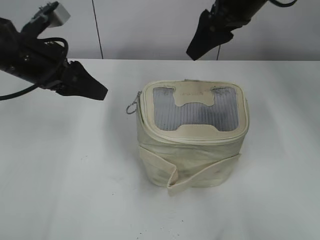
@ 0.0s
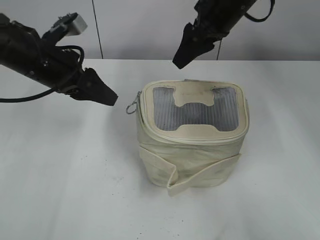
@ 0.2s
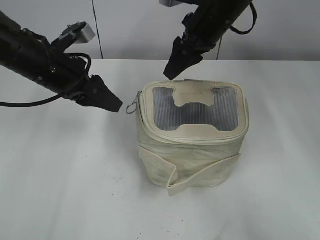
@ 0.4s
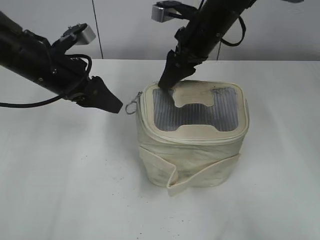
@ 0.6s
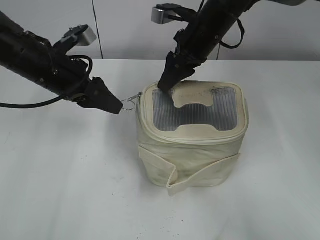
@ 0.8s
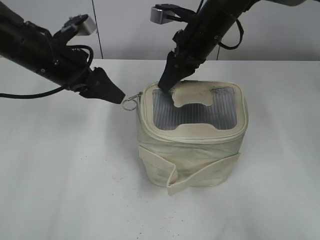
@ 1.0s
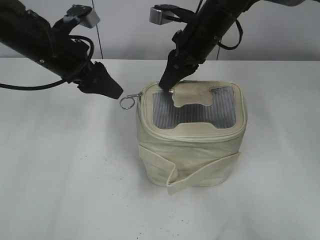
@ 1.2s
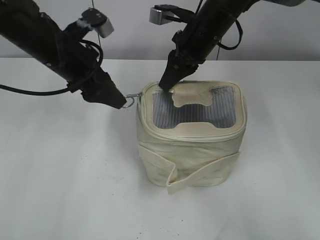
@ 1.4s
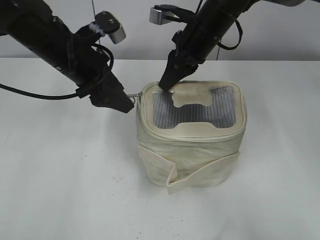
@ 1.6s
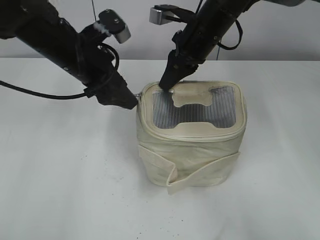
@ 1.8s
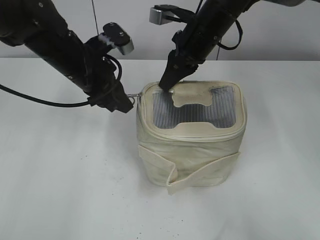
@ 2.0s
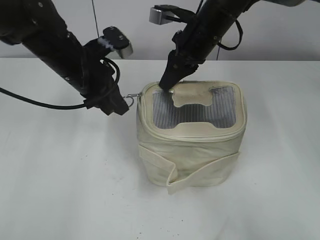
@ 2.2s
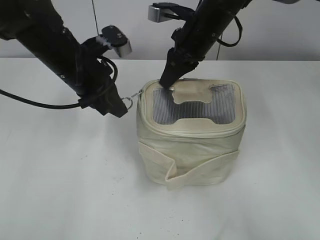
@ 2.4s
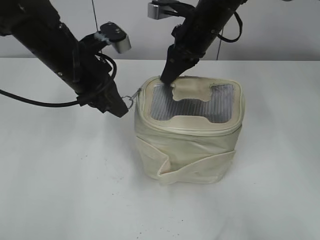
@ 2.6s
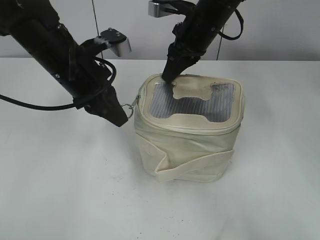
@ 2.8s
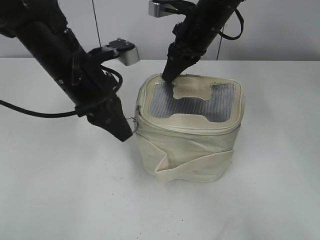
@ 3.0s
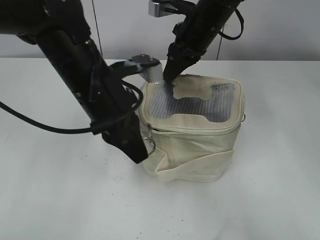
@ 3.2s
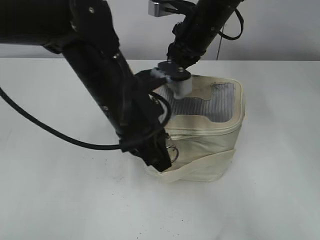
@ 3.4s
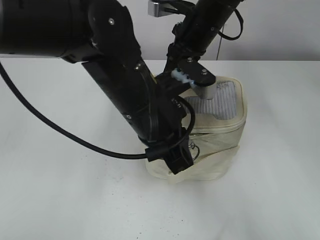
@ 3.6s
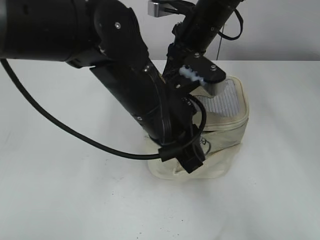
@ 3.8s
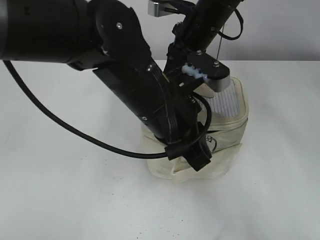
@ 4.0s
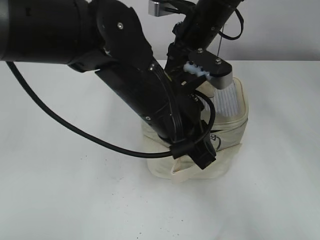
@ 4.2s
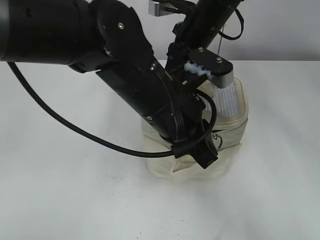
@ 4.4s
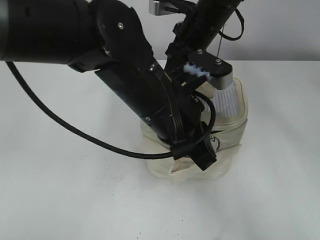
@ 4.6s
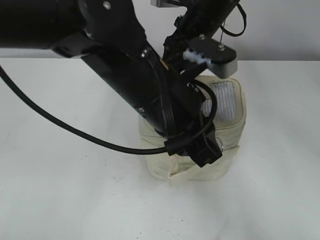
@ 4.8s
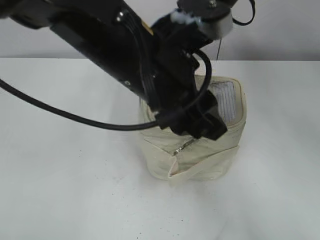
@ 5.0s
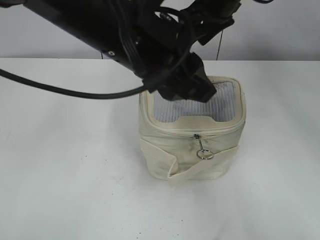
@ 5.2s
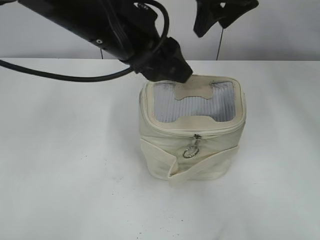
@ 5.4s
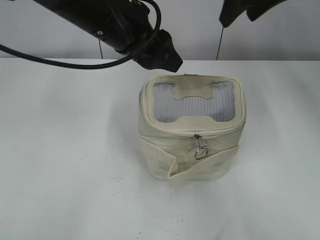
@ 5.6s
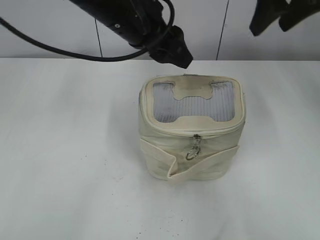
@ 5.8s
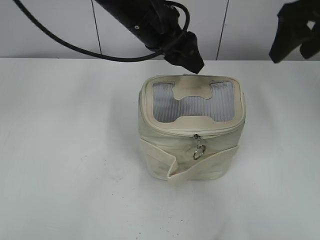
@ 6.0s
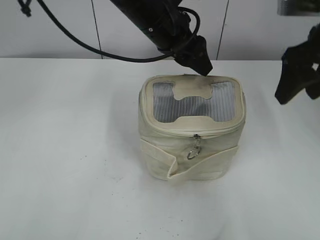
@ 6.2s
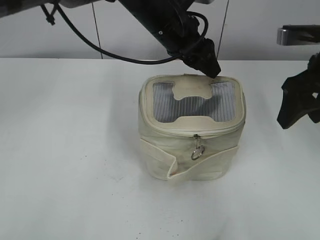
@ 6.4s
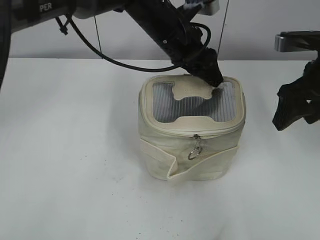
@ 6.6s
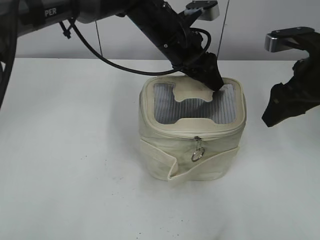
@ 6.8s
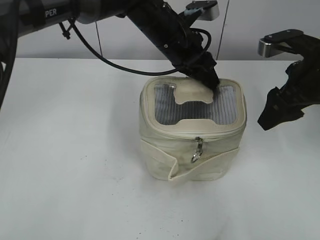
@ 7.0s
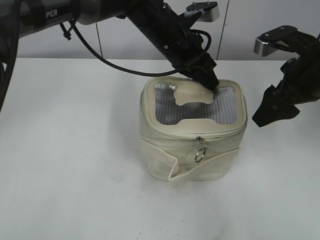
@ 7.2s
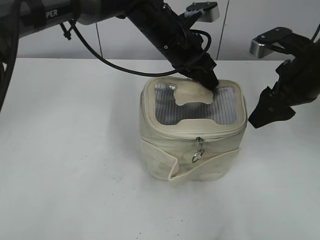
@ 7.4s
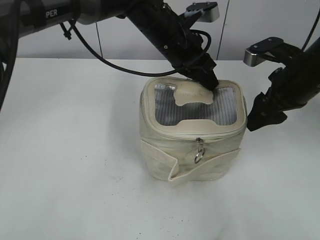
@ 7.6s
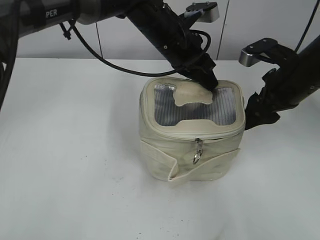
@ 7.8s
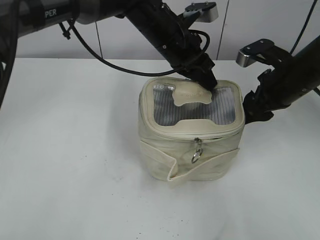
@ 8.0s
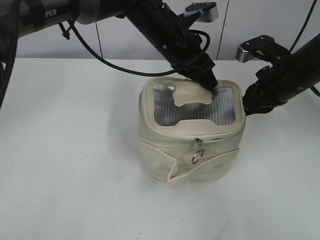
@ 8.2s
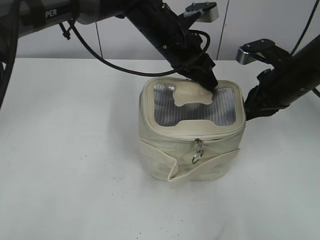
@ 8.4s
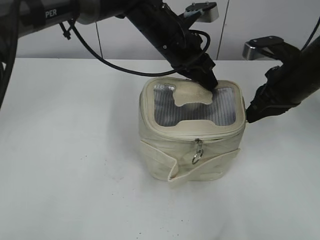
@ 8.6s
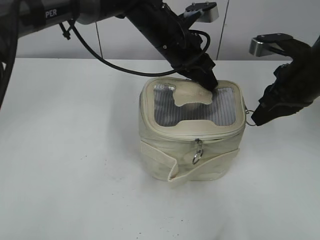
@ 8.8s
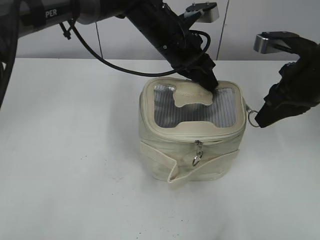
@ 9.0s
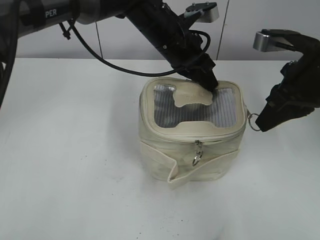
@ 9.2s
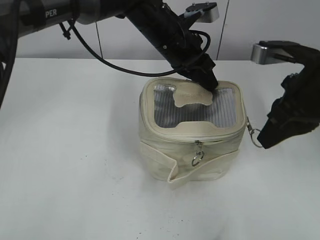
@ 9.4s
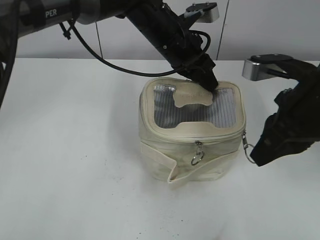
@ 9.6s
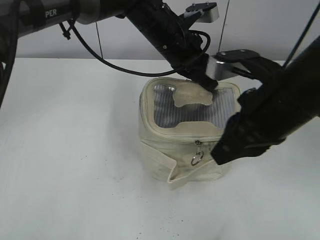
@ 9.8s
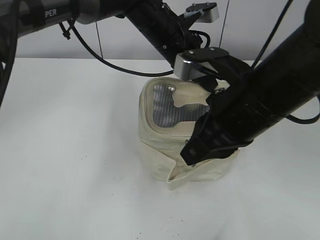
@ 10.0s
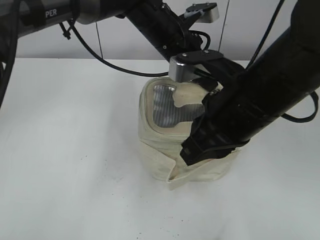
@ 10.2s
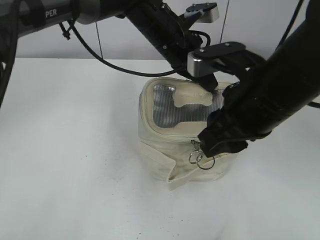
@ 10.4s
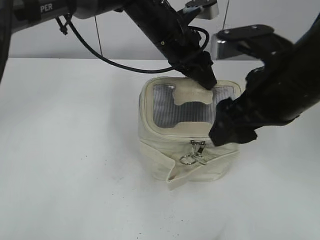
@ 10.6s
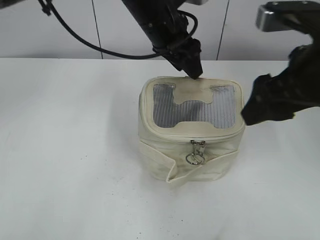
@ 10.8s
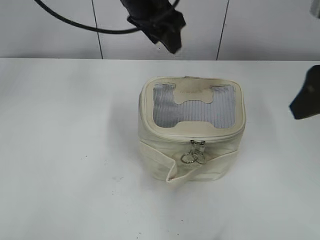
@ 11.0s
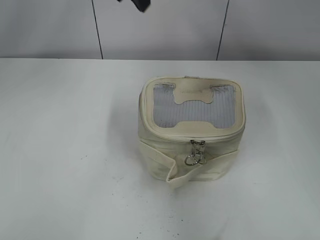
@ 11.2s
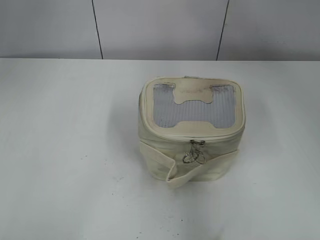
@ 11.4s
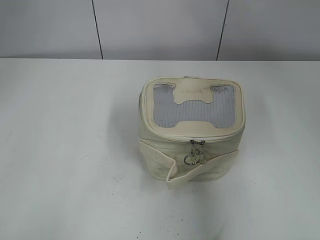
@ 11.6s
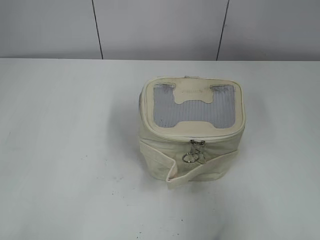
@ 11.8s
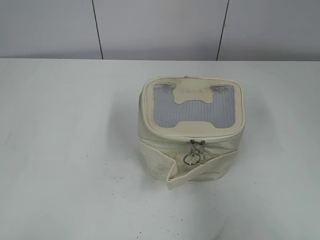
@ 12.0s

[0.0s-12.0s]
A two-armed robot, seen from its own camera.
Step, 0.0s to 4.6s: Zip up the bag with your left hand.
Step, 5.2s to 10.2s: Zip up the bag with your right hand.
Step, 10.4s to 10.8s: Hold the bag with your left hand.
0.0s to 1.6s: The left gripper is displaced to the right by roughly 5 cm. The right gripper shifts roughly 10 cm downward, and closes up.
1.6s to 3.0s: The left gripper closes up.
3.0s to 4.4s: The left gripper heads to the right and backward, covering approximately 15 cm.
4.4s to 6.0s: The left gripper goes about 15 cm forward and upward, and opens its fingers; the right gripper moves to the right, upward and backward, roughly 20 cm, and opens up.
6.0s to 7.6s: The left gripper heads downward, covering approximately 5 cm, and closes up. Meanwhile the right gripper shifts approximately 10 cm downward.
7.6s to 9.0s: The right gripper closes up.
9.0s to 10.4s: The right gripper is displaced to the left and backward by some 15 cm.
10.4s to 12.0s: The right gripper goes about 25 cm backward and to the right, and opens its fingers. The left gripper goes approximately 35 cm to the left, backward and upward, and opens up.

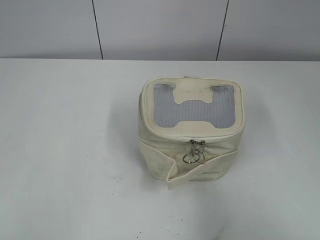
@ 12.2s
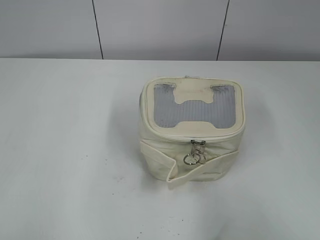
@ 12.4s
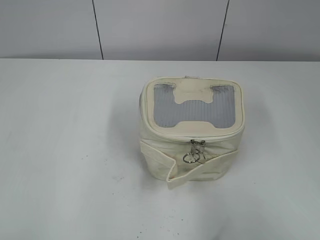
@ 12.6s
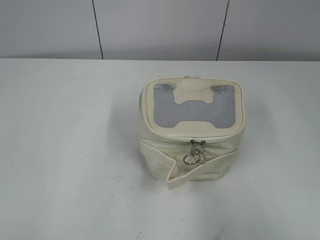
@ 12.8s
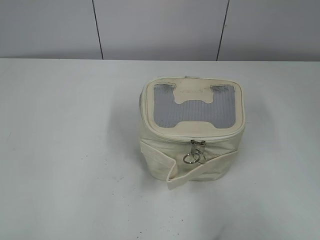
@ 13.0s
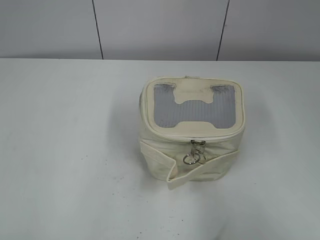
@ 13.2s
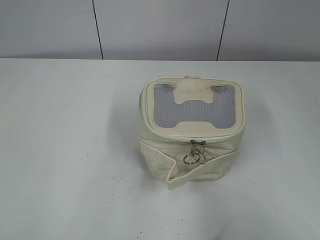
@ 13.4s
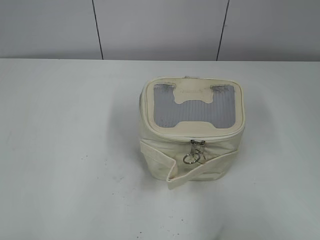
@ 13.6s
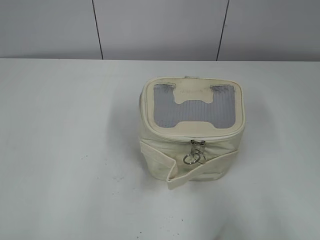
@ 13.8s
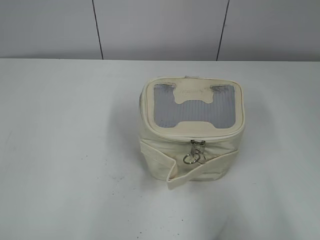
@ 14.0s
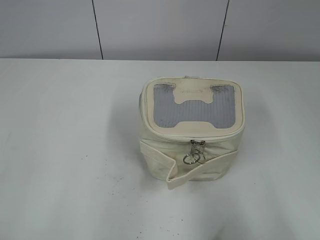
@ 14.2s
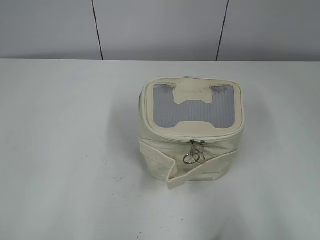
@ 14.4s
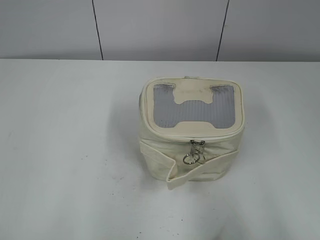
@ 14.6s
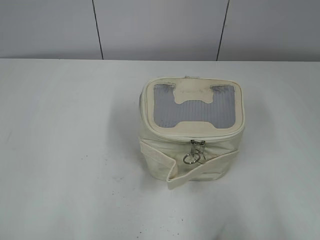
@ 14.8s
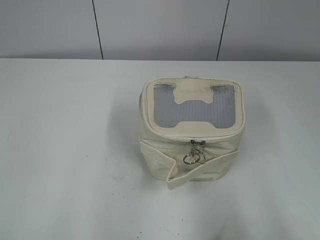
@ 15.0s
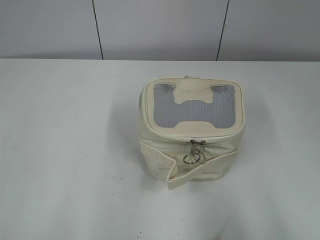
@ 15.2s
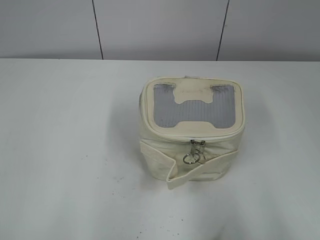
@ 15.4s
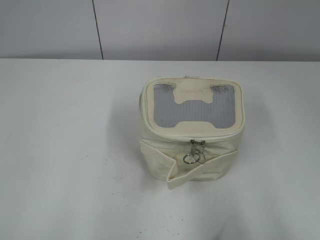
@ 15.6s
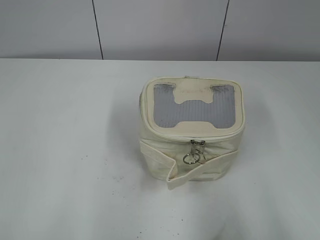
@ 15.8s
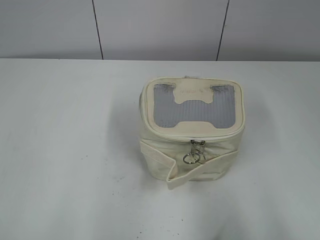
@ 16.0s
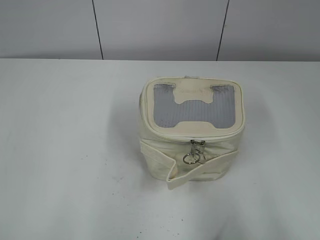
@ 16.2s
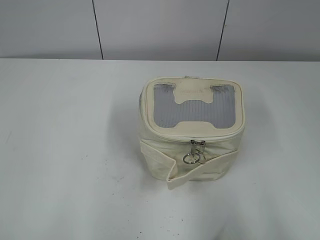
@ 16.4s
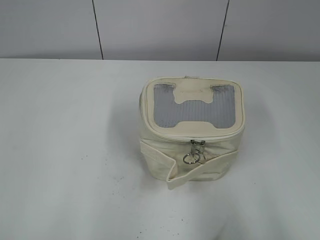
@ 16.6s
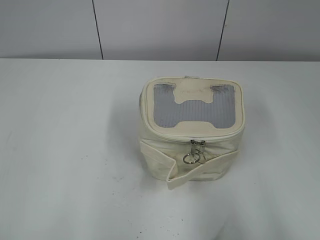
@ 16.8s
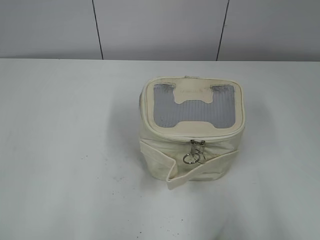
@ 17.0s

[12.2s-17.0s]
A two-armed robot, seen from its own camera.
15.4s to 17.0s: Both grippers stay put.

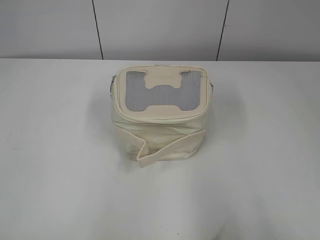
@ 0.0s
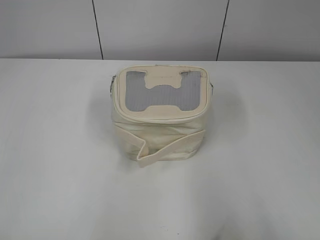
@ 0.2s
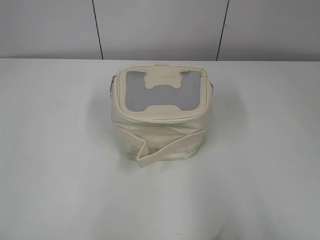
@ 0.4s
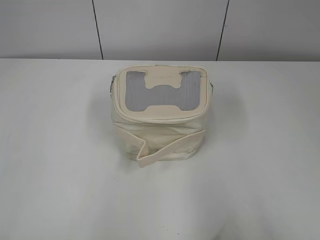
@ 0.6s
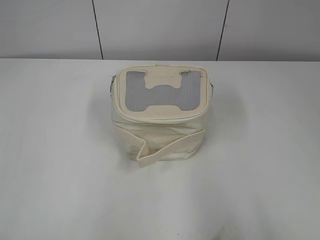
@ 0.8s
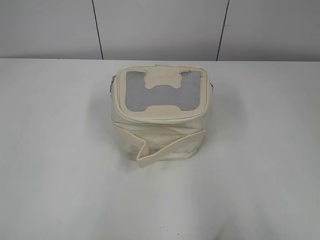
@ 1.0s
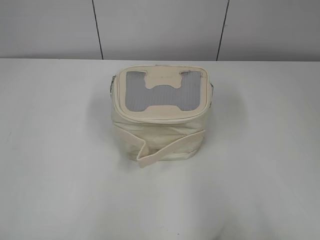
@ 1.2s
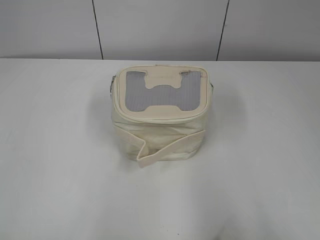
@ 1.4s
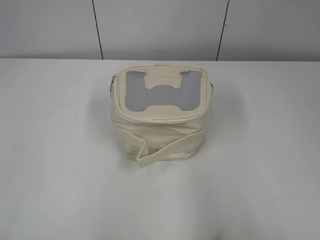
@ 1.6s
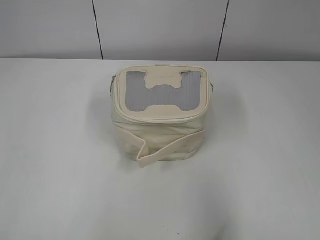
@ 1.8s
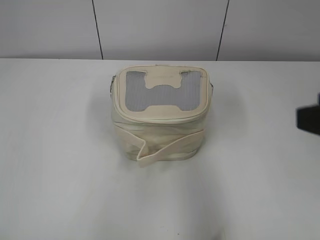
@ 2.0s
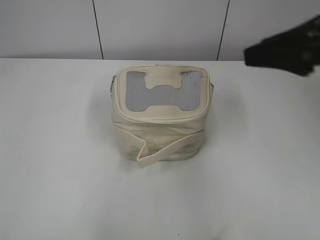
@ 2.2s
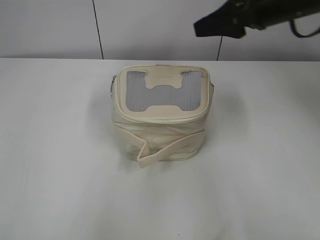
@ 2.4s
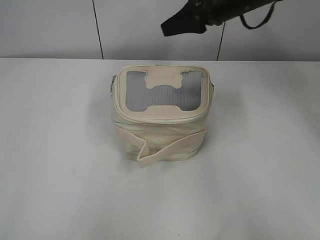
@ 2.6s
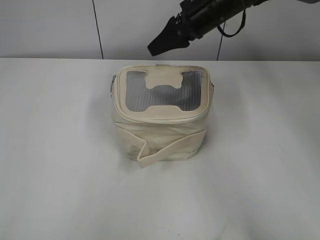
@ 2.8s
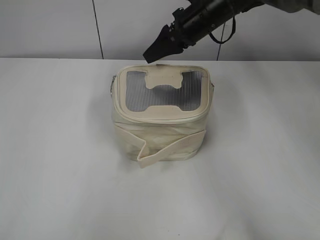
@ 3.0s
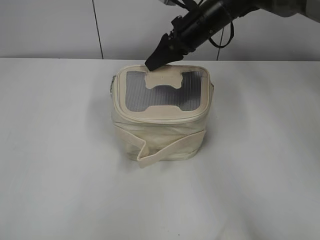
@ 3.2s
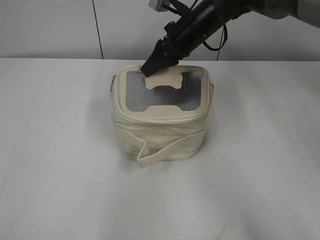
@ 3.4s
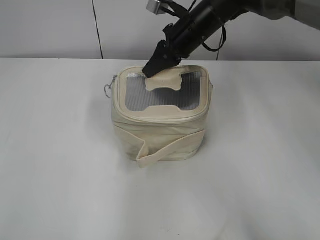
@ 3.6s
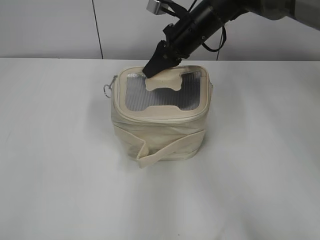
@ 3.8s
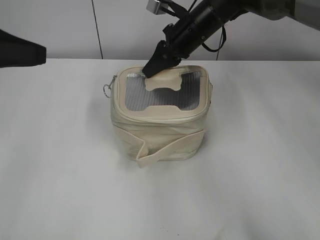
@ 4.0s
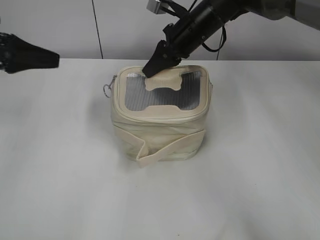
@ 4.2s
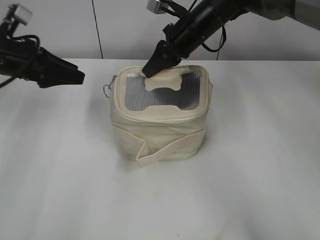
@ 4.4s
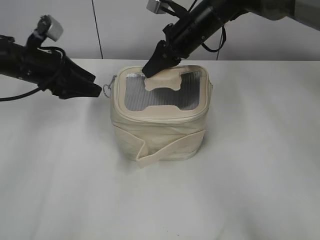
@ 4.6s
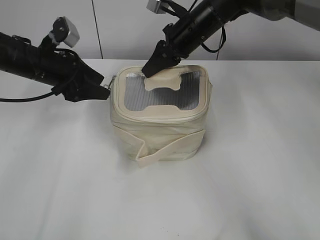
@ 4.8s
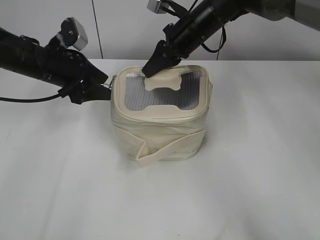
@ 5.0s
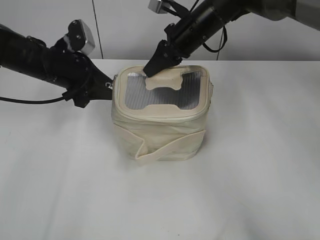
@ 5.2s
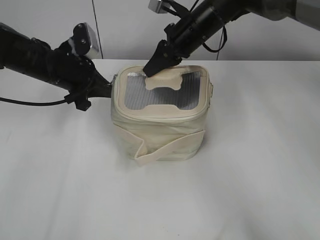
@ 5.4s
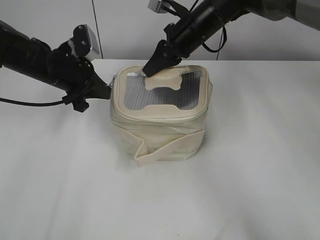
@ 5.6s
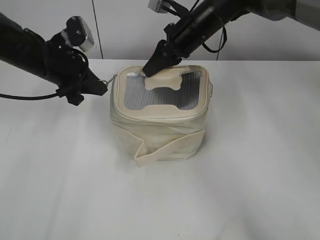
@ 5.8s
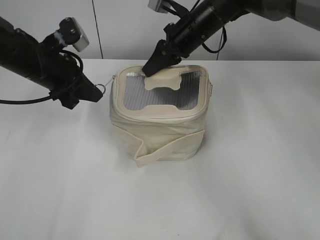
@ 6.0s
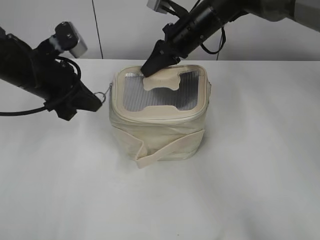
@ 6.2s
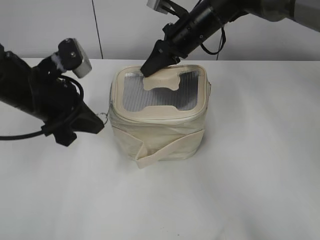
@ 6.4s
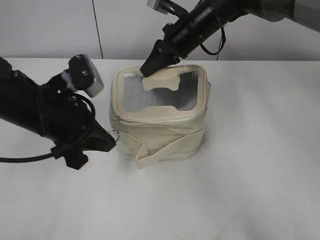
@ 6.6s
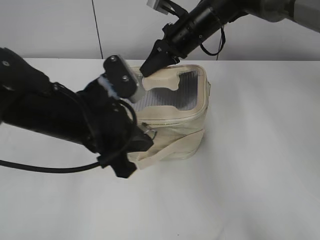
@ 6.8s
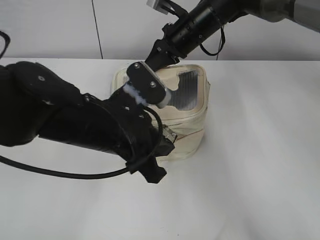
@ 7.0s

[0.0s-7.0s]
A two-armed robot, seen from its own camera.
1.4s to 2.8s: The right gripper goes roughly 50 cm forward and to the left.
2.8s to 4.2s: The right gripper changes place by about 5 cm, and closes. The left gripper is displaced forward by roughly 30 cm.
4.2s to 5.6s: The left gripper travels downward, to the right and forward by some 15 cm, and closes up.
5.6s to 7.0s: The left gripper heads backward and to the right, covering about 20 cm.
